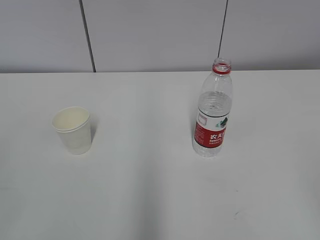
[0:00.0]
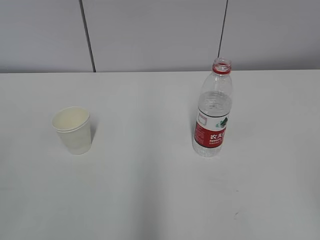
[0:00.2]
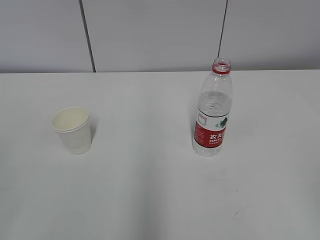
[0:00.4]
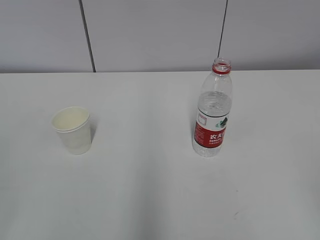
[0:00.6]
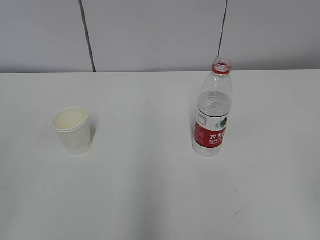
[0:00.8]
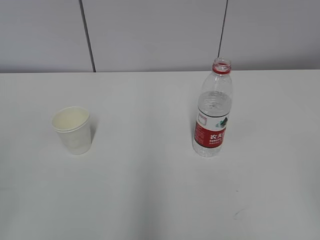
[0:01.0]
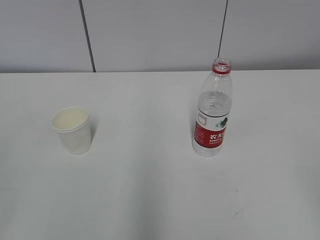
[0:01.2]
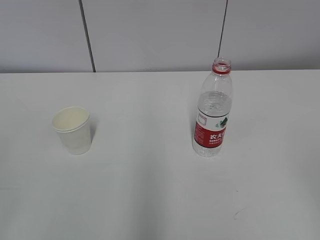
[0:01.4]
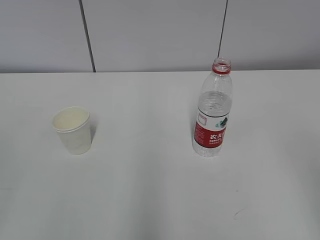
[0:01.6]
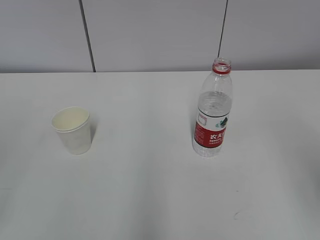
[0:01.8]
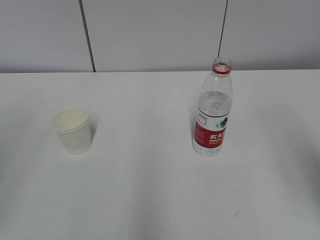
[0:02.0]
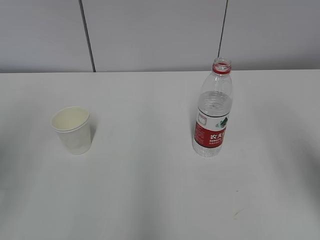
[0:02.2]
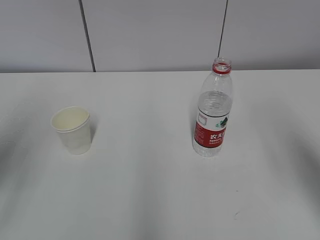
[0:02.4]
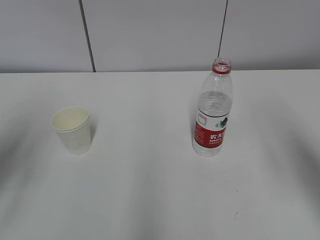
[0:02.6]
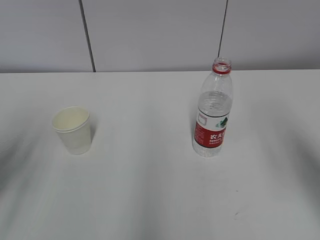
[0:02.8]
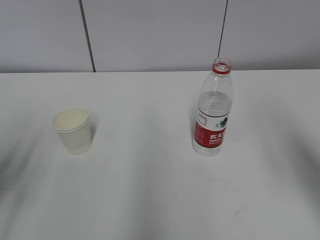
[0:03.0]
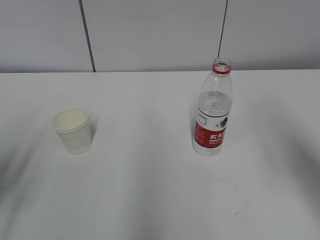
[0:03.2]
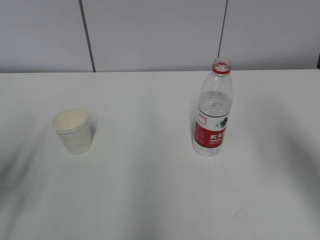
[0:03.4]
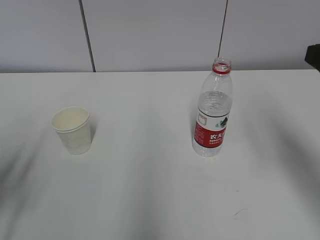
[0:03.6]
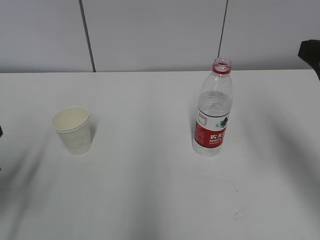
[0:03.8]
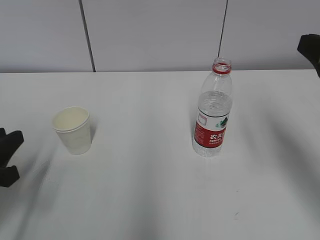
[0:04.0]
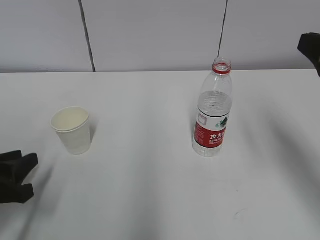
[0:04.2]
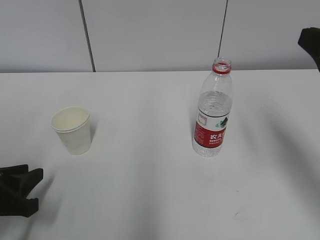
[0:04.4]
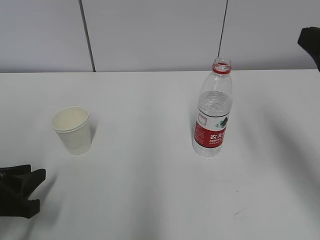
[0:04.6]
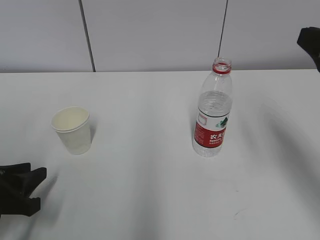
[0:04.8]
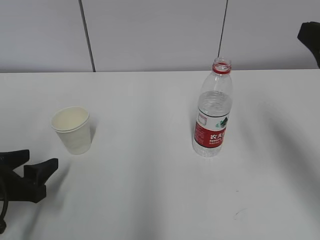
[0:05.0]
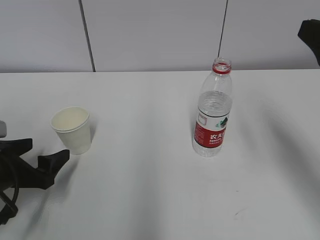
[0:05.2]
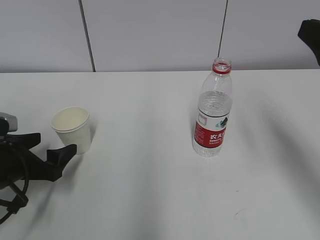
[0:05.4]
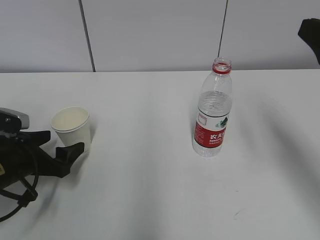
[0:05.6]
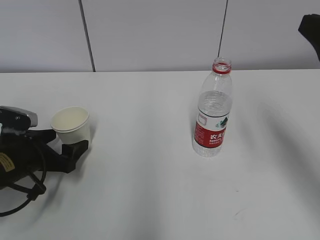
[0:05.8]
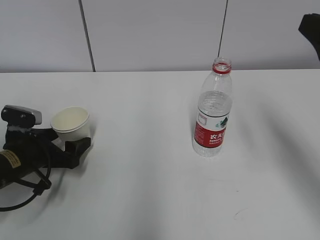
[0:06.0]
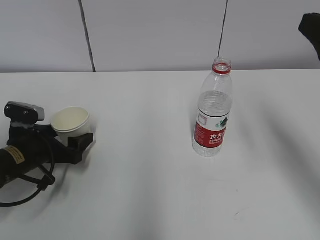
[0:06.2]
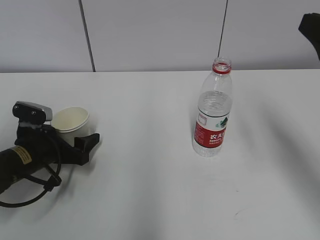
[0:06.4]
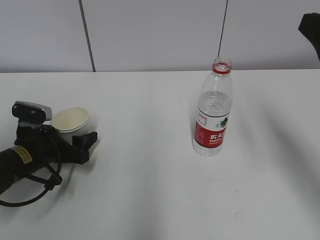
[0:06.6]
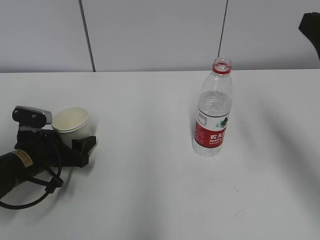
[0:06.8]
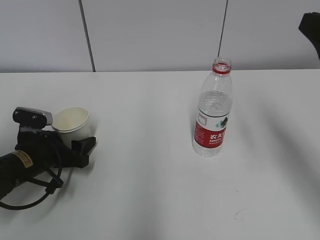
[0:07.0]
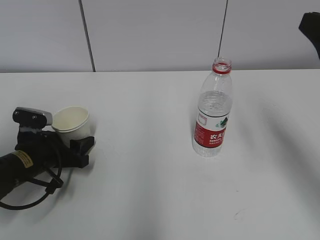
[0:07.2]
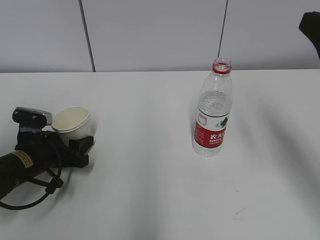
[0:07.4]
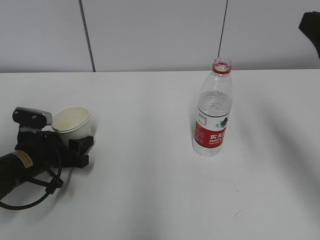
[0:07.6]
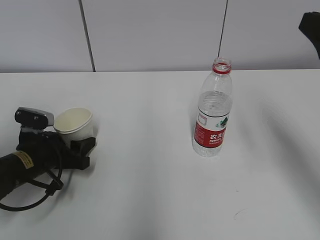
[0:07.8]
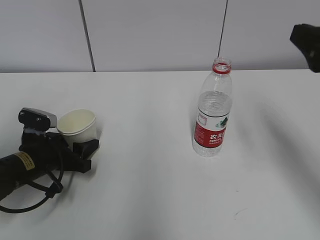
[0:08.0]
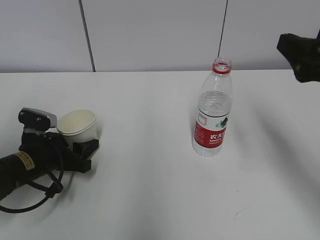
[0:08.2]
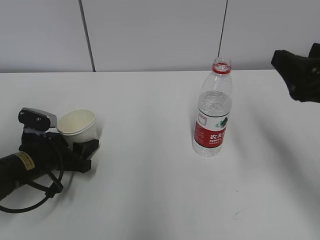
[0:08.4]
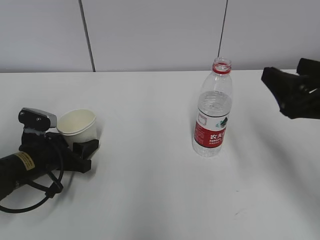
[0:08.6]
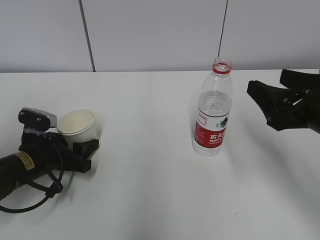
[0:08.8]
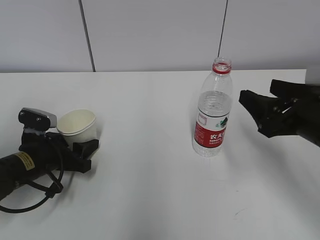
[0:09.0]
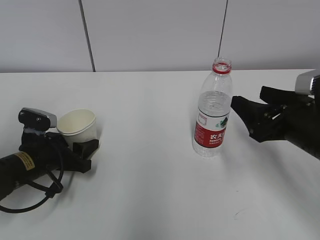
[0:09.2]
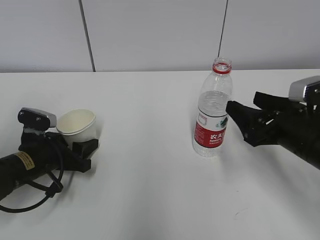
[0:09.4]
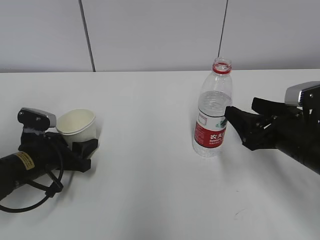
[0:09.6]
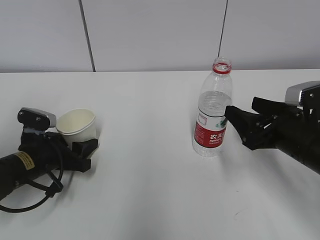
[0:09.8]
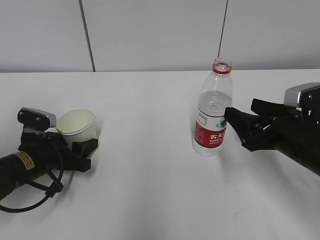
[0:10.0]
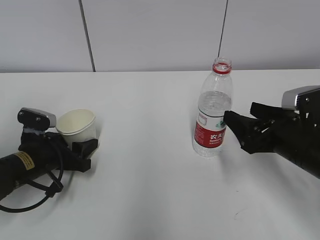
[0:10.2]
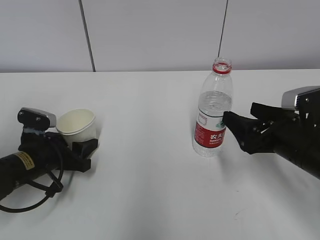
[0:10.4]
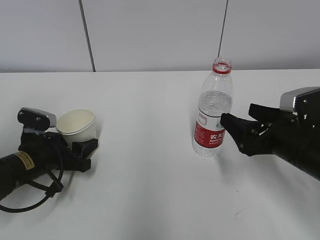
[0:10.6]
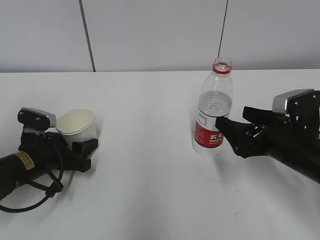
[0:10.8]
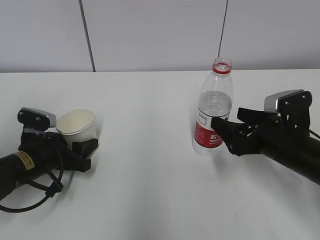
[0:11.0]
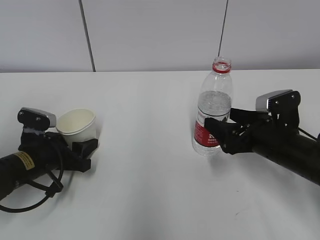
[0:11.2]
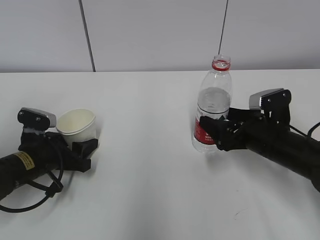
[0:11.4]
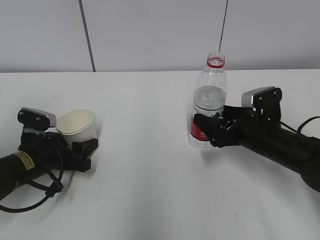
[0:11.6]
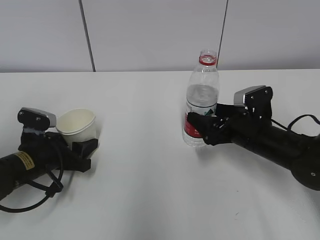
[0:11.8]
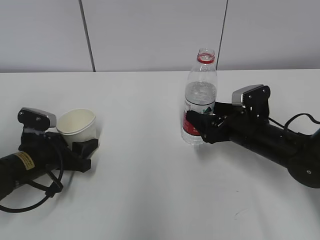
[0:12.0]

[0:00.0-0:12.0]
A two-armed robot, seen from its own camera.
Step, 0:00.0 to 0:06.2: Grab the paper cup with the left hand.
0:01.6 to 0:03.0: The left gripper travels forward and downward by about 20 cm. Meanwhile the right gripper goes some 10 cm forward.
0:03.0 to 0:04.4: The right gripper is displaced forward by roughly 5 cm. The left gripper goes some 10 cm downward.
0:04.4 to 0:06.0: The left gripper shifts some 10 cm forward, and opens.
0:06.0 to 0:07.6: The left gripper closes up.
0:07.6 to 0:09.0: The right gripper goes about 10 cm downward.
0:09.0 to 0:10.4: The right gripper heads downward, covering approximately 5 cm.
0:10.4 to 0:12.0: The right gripper shifts roughly 10 cm forward and downward.

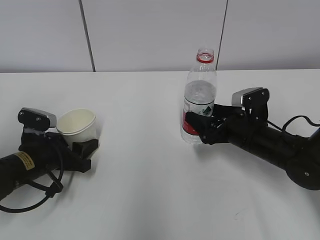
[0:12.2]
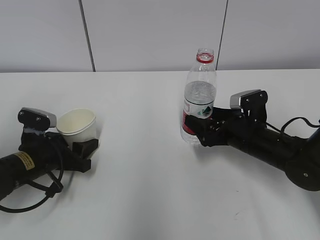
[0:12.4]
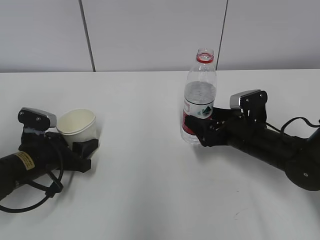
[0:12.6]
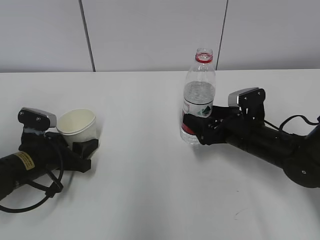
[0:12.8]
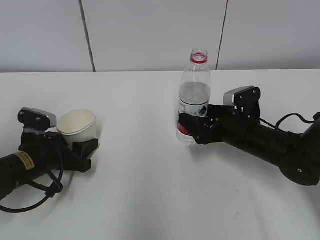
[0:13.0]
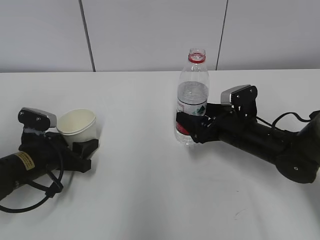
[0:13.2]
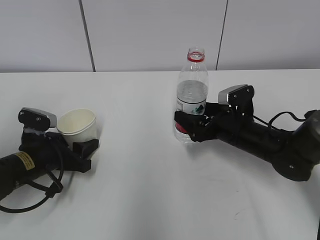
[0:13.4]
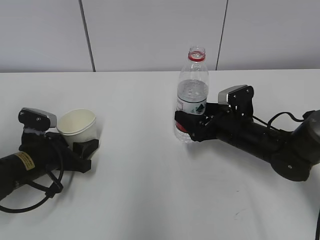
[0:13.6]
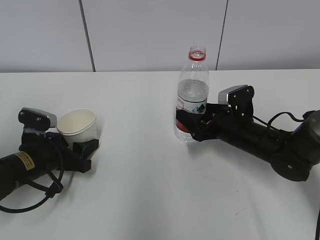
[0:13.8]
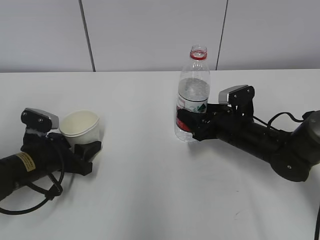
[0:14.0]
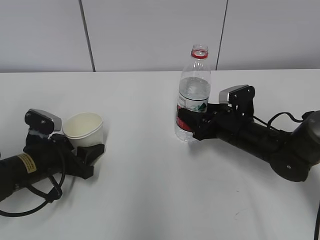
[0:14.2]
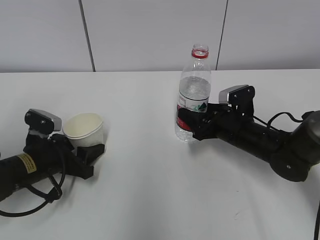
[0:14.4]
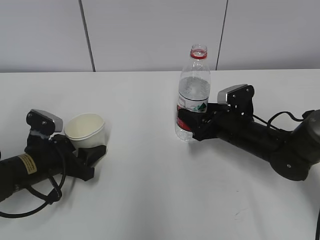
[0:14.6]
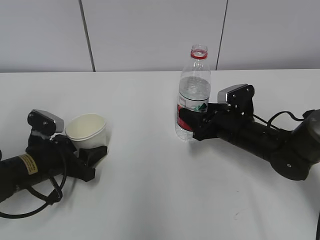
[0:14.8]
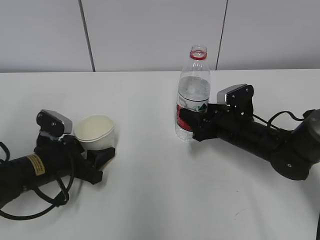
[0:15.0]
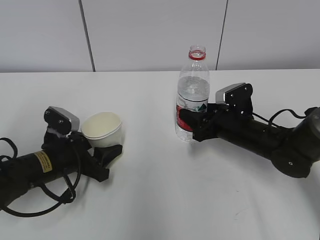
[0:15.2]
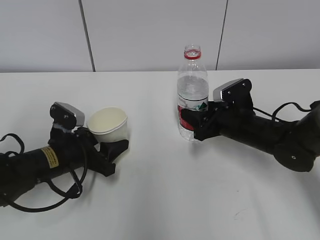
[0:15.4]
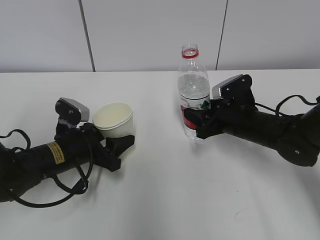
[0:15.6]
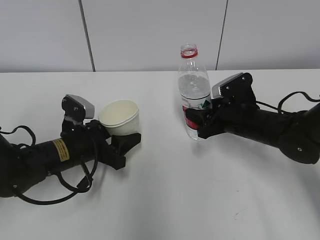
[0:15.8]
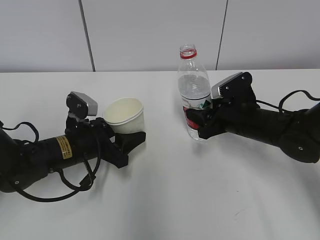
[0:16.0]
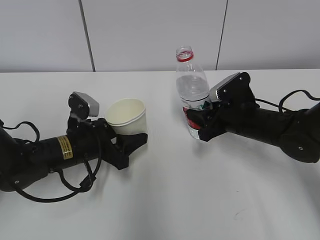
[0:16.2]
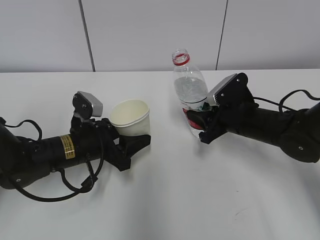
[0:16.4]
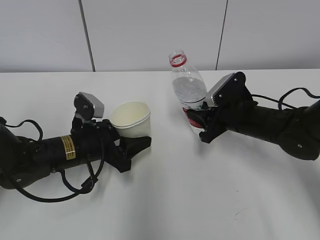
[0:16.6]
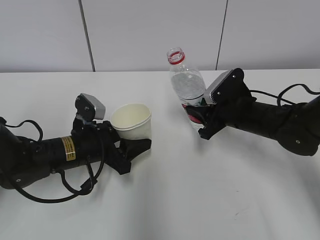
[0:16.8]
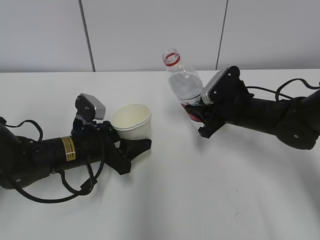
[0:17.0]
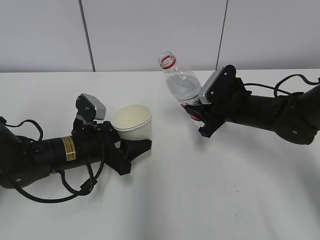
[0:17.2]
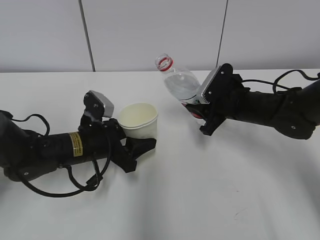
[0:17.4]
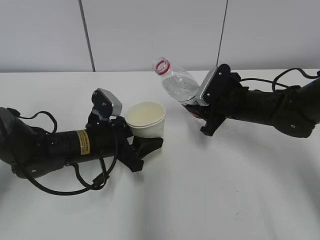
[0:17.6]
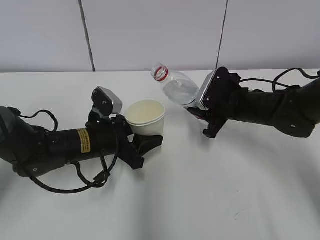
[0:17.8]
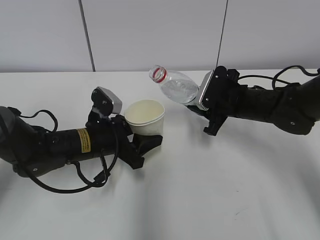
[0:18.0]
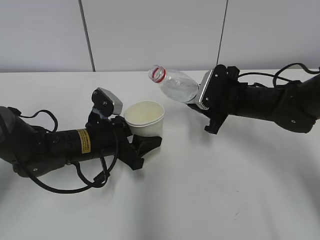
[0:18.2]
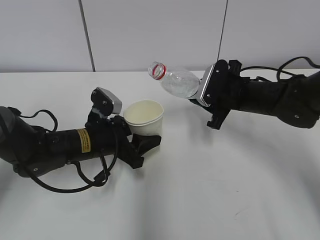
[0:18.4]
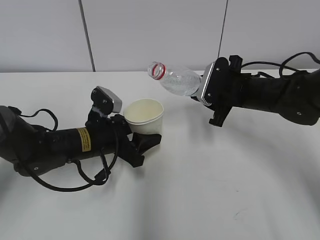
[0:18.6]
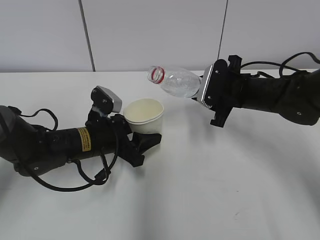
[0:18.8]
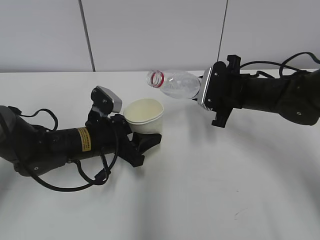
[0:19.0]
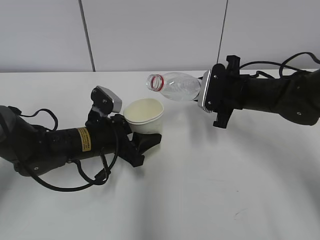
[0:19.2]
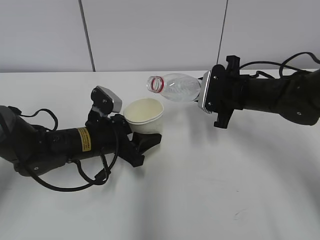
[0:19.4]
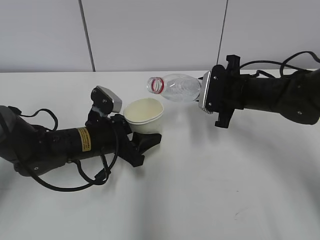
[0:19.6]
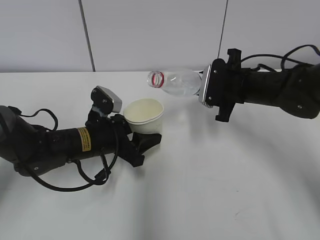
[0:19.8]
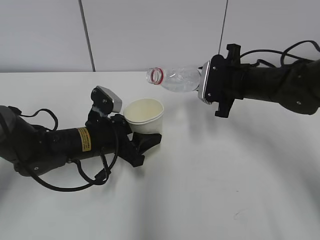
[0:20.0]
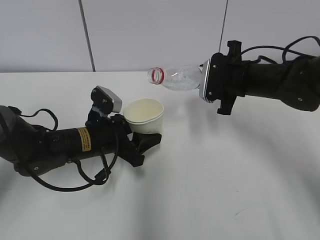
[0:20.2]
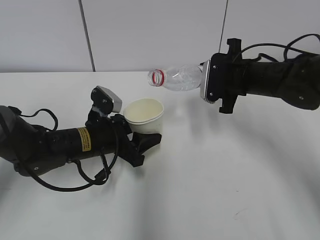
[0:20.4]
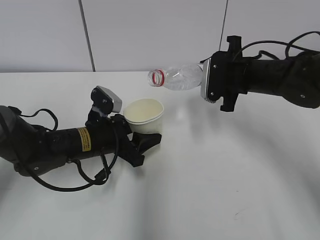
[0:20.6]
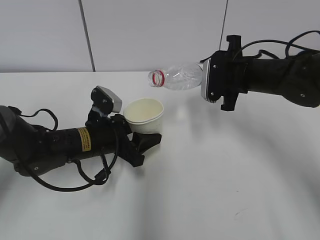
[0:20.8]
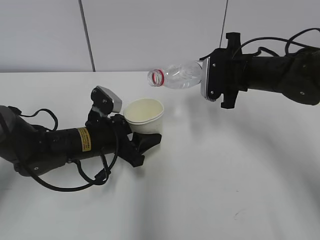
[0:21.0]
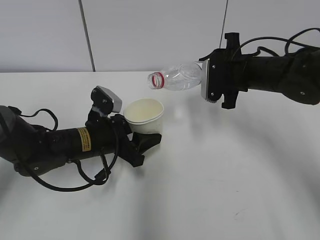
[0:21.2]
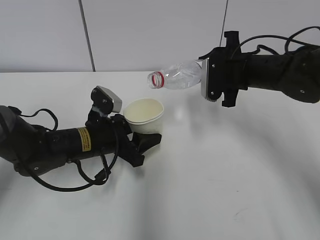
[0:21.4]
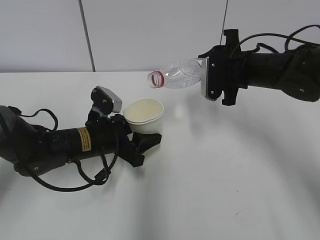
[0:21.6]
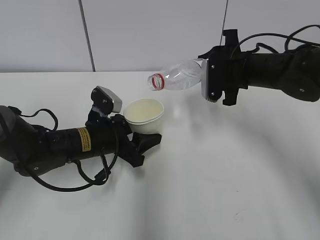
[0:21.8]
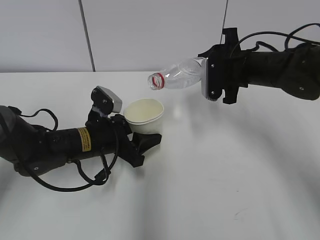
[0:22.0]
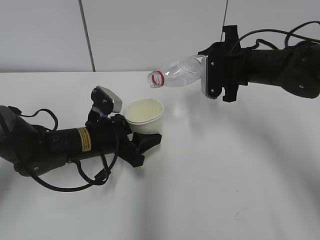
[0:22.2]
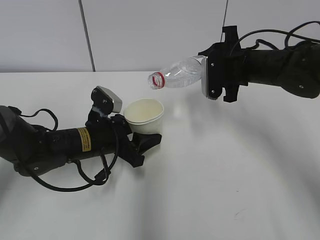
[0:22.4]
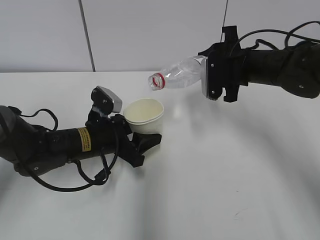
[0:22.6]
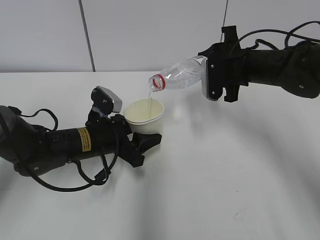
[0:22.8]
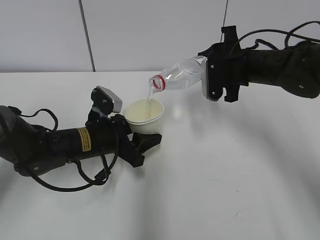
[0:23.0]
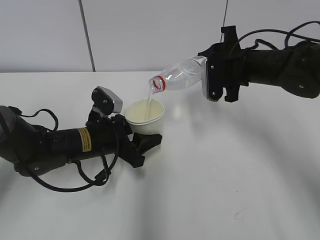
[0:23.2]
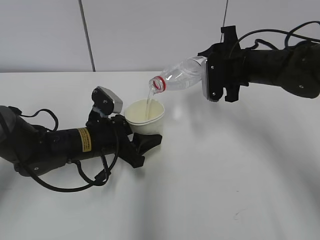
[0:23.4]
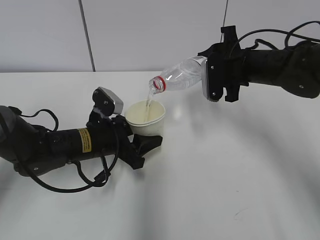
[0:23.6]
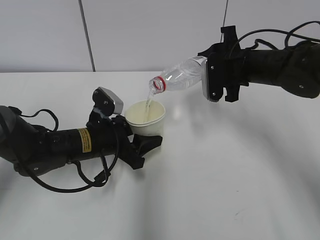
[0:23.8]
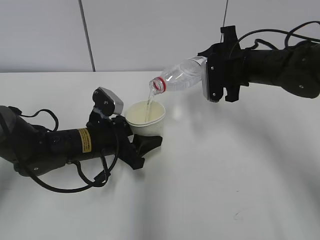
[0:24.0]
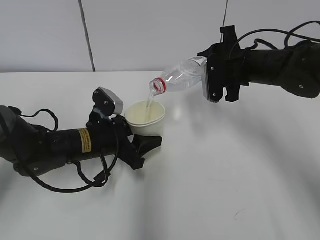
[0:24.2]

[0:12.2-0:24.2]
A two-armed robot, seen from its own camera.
Step, 0:12.6 to 0:18.2: Lift the paper cup with the left hand.
Step, 0:18.4 to 0:22.2: Pour water with the right hand.
0:12.2 to 0:13.8: The grippers make only small movements.
0:13.8 to 0:15.2: The right gripper closes up.
0:18.2 to 0:19.8: The grippers move only a little.
0:19.8 to 0:22.6: There are only small adjustments of the grippers.
0:22.6 to 0:24.2: Both grippers stay about where they are.
